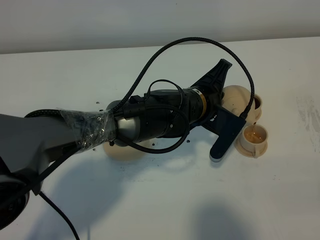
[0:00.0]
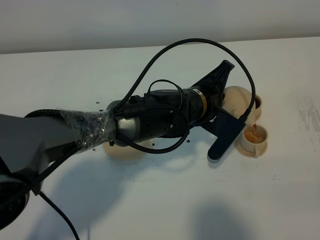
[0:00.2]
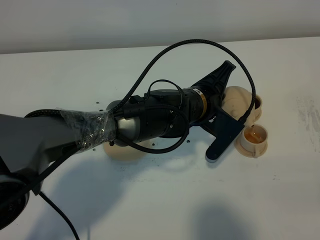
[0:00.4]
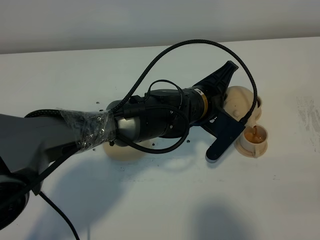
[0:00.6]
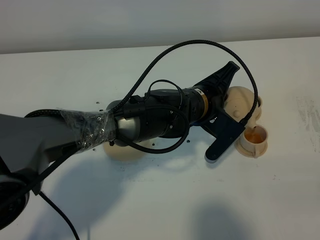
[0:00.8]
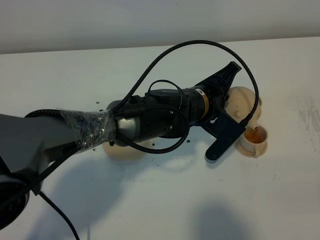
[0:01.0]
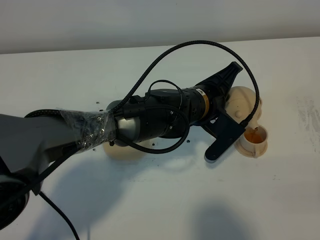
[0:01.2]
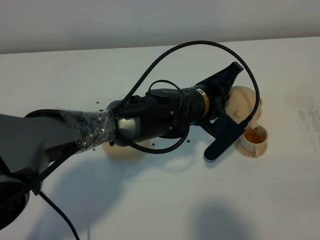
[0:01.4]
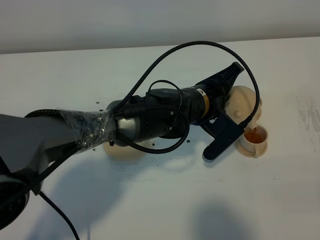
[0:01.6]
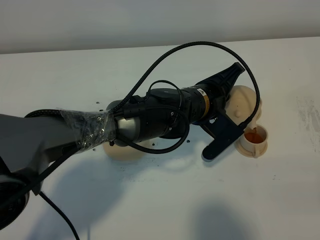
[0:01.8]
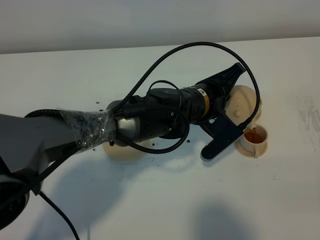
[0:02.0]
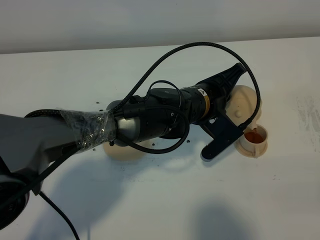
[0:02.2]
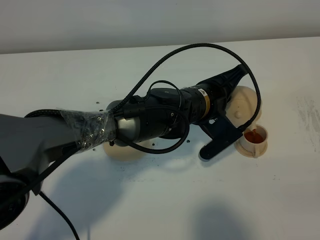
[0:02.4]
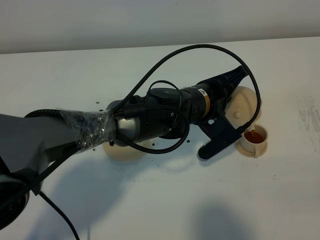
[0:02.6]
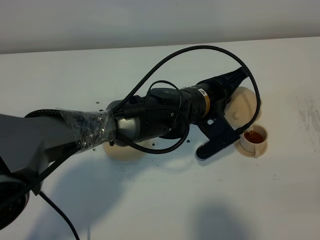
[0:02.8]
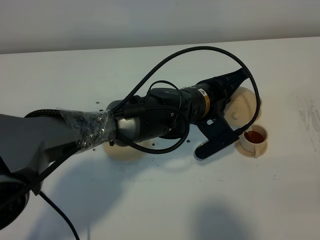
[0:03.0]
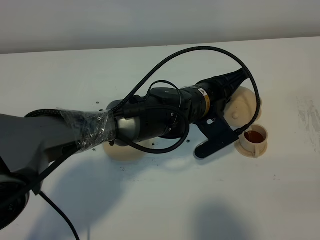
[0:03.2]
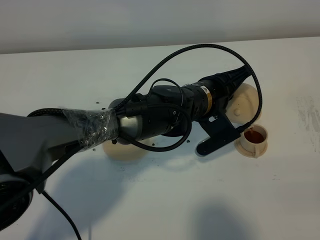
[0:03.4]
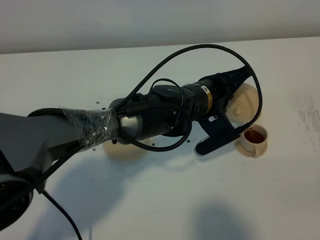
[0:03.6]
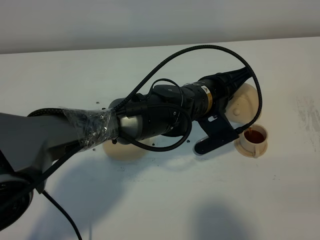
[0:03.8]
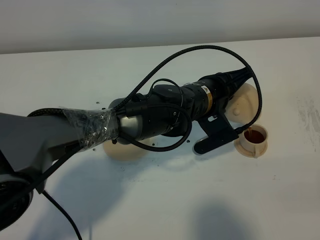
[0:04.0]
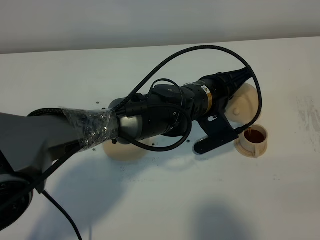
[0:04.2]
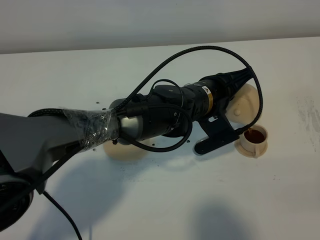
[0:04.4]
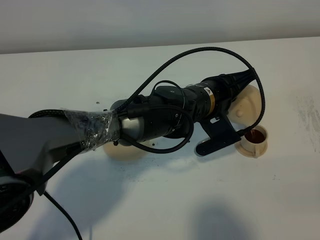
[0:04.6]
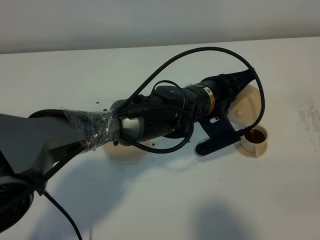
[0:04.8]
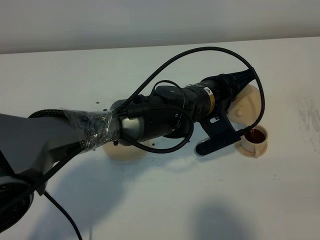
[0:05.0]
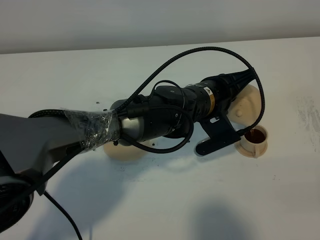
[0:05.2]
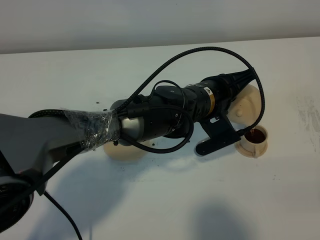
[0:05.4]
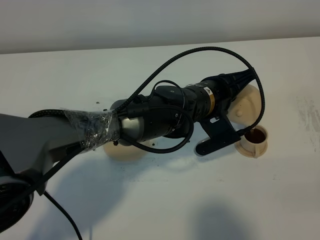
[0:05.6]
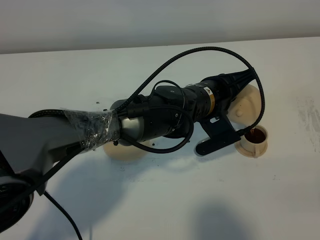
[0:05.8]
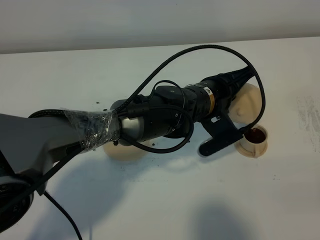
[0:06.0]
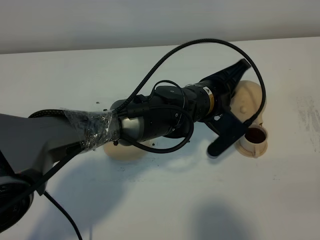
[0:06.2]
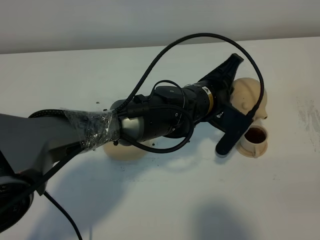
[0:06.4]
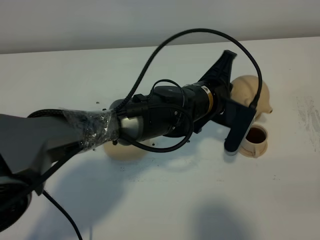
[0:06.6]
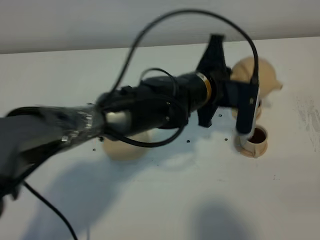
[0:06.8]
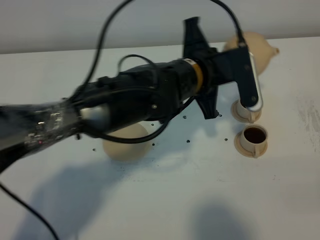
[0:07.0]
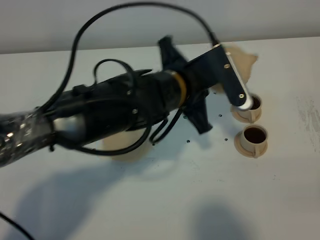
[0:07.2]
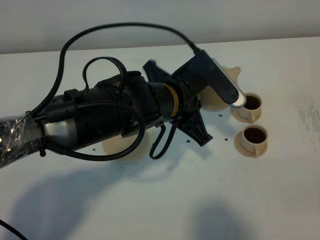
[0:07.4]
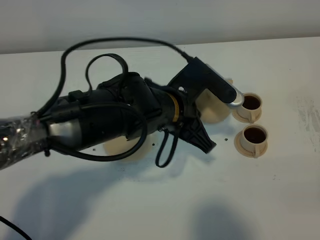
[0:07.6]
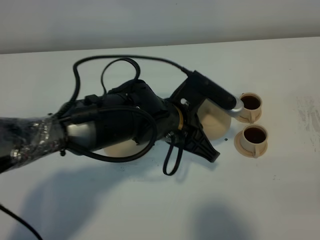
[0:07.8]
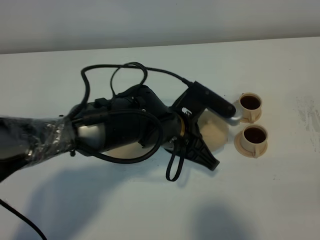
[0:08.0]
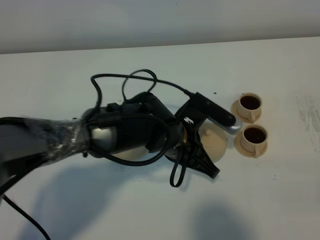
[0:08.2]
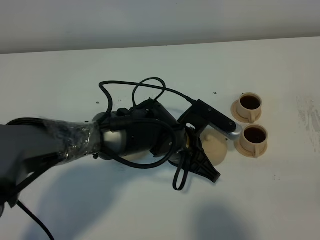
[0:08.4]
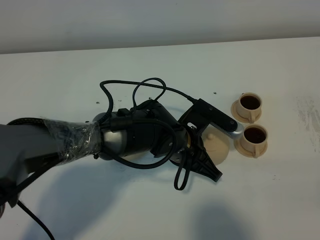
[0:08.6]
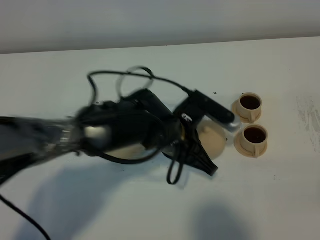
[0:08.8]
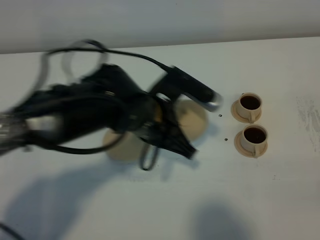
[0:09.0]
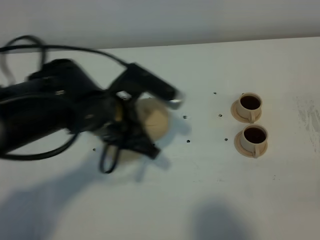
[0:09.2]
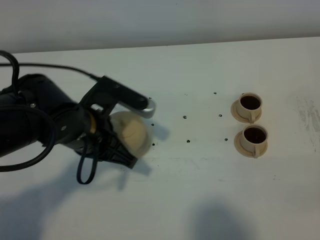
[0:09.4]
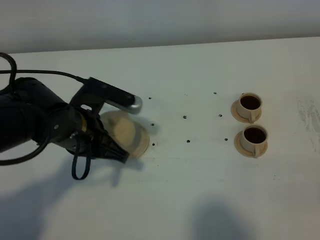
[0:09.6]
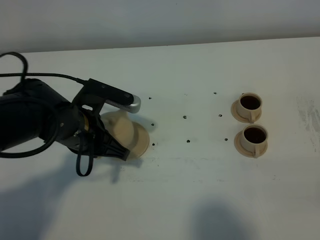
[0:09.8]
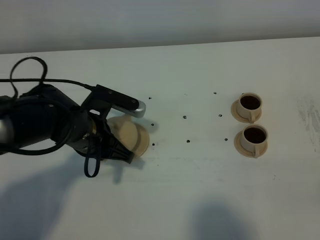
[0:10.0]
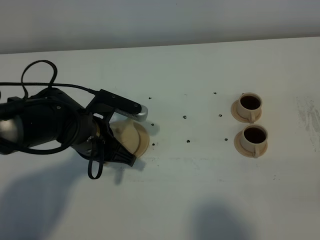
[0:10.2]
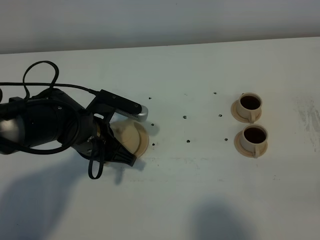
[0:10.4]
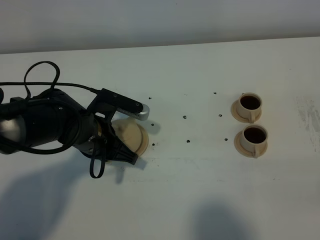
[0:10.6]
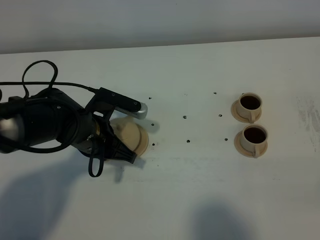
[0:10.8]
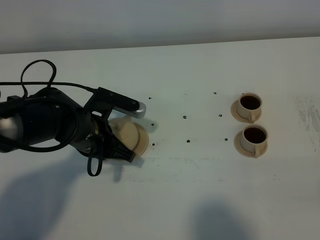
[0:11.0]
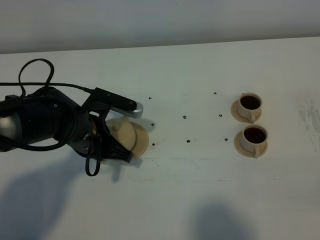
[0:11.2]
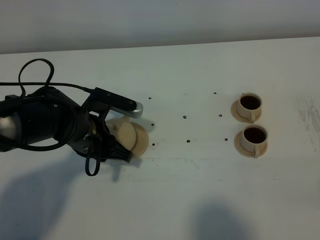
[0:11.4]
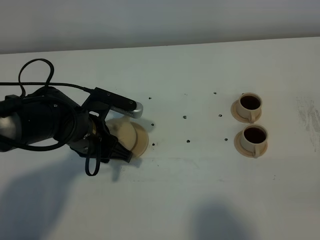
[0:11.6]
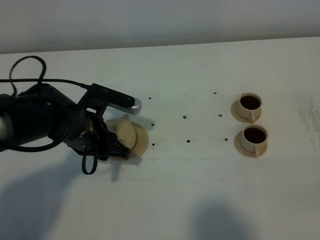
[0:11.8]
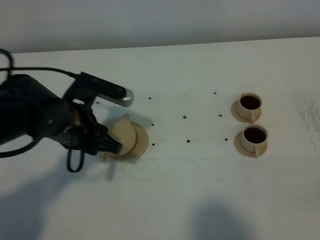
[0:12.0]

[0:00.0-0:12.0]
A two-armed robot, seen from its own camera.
Task of the whole recording: grasp the brown teapot and pour the tea into the two brown teacups one by one, put the brown teapot back in its original place.
Step, 0:00.0 to 0:06.2: Pour tea into the teacup with the left gripper.
0:00.0 to 0:01.6: There are only small adjustments of the grippers.
0:01.6 to 0:04.4: The grippers stay close to where they were, moving slightly.
0:04.4 to 0:06.0: Both grippers stay put.
0:06.0 to 0:07.6: The left gripper heads to the left, covering approximately 5 cm.
0:07.6 to 0:09.0: The left gripper goes downward and returns, about 10 cm each way.
0:09.0 to 0:10.4: The left gripper is displaced to the left and downward by about 10 cm.
0:10.4 to 0:12.0: The left gripper travels upward by some 5 cm, and opens.

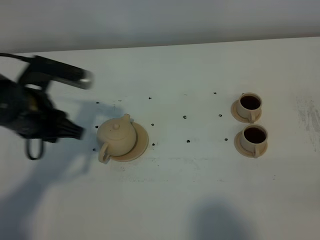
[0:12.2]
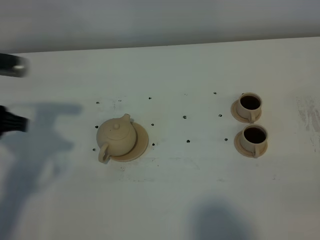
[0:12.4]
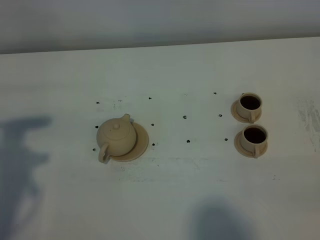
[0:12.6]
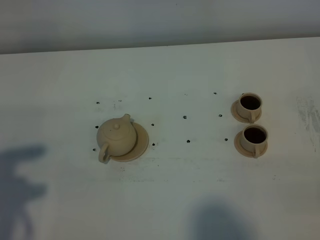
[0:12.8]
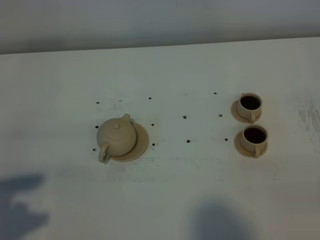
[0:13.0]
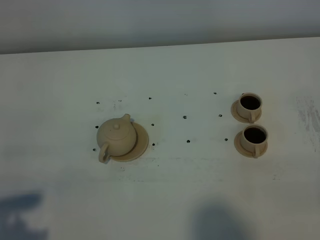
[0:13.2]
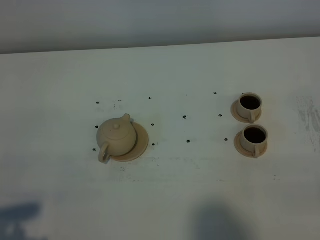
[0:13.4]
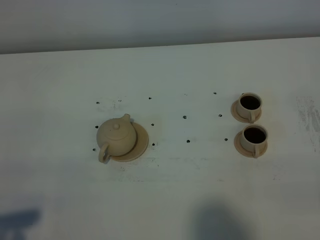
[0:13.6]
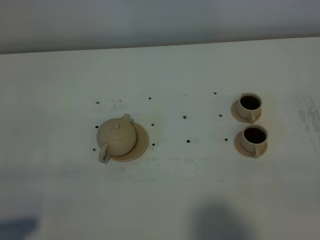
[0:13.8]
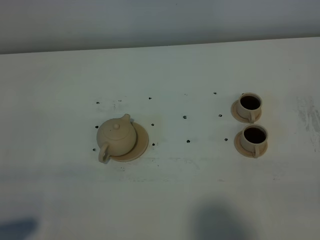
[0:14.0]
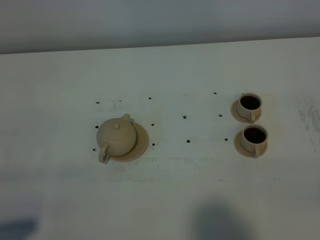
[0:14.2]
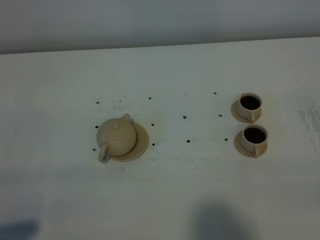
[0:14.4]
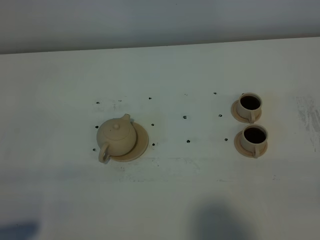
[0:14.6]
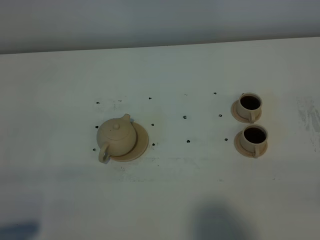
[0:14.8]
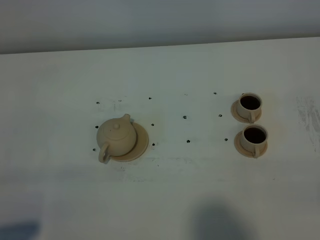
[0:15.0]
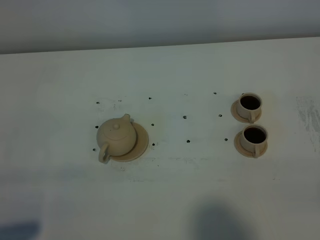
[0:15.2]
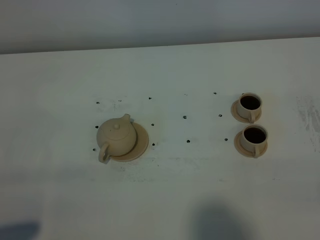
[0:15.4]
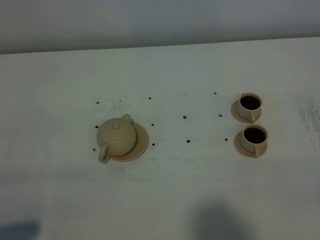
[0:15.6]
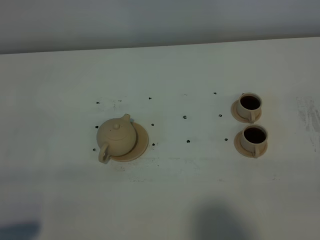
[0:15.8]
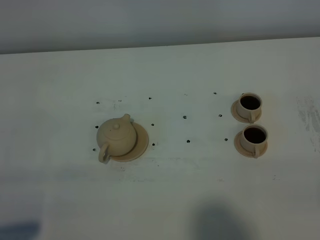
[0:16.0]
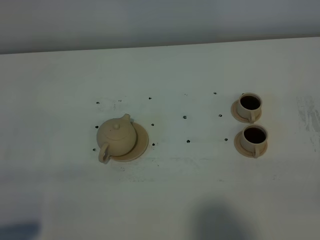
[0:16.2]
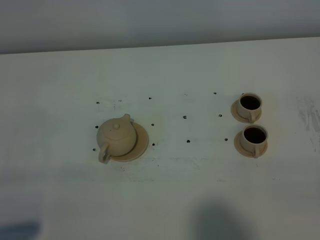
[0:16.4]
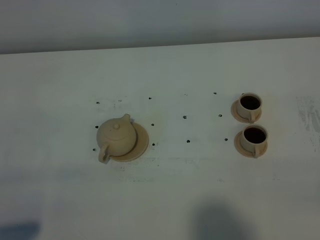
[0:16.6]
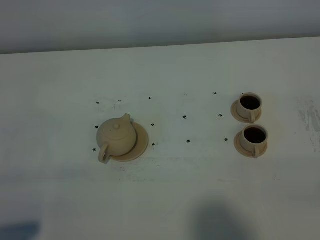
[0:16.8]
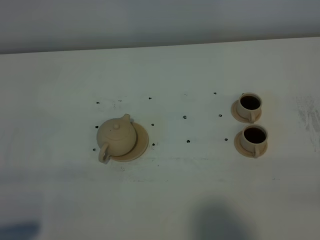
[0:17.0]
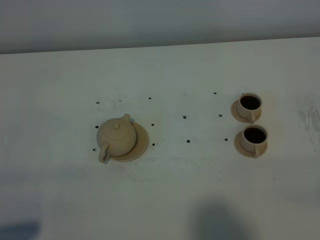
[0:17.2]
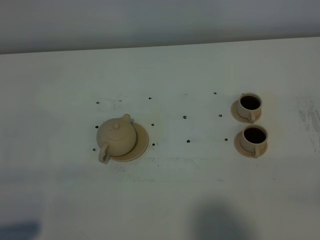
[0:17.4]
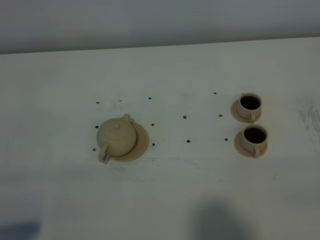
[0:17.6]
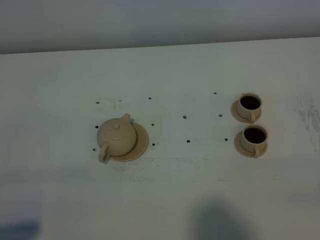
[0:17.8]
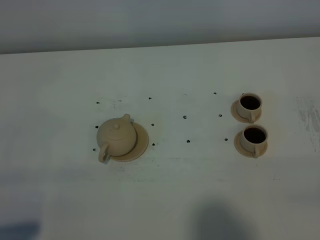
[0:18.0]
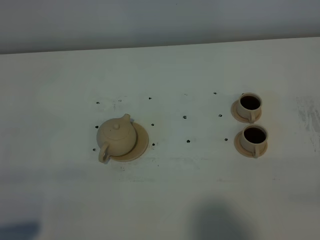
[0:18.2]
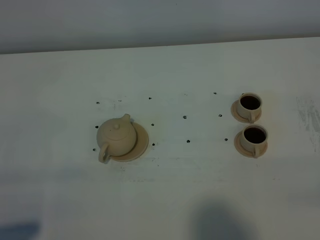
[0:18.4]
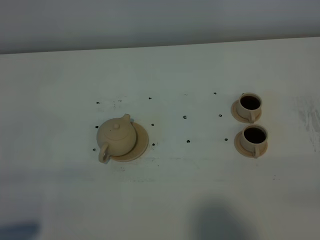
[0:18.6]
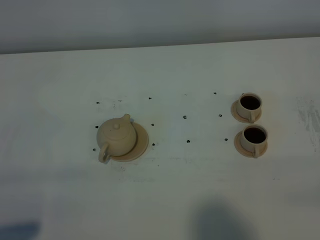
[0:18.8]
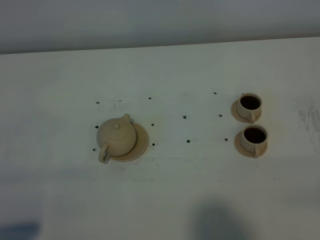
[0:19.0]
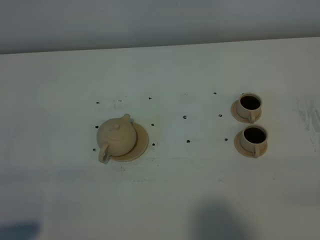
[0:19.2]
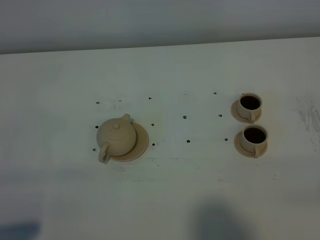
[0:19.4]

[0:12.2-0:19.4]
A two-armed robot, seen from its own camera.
Task of the whole recording: grasp the brown teapot and pour the tea into the two brown teacups one by one, put the brown teapot back in its original place.
0:12.2 to 0:13.6: The left gripper heads backward, covering some 25 cm.
0:15.0 to 0:16.6: Neither gripper changes place.
0:18.0 to 0:19.4: Neither gripper changes place.

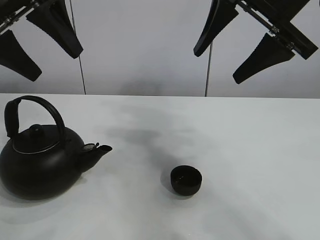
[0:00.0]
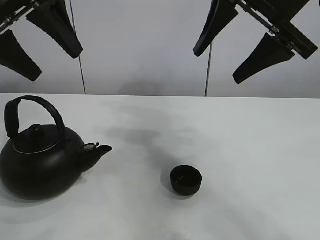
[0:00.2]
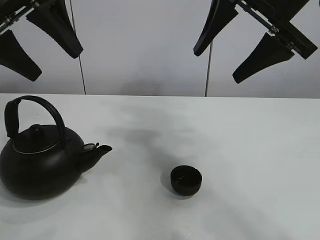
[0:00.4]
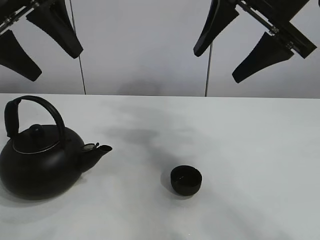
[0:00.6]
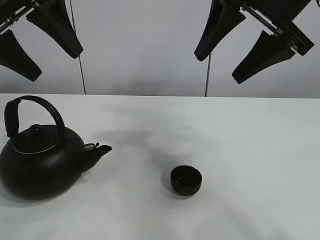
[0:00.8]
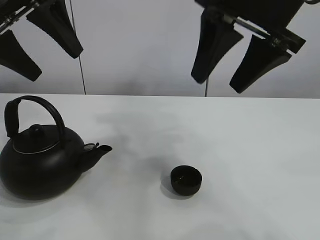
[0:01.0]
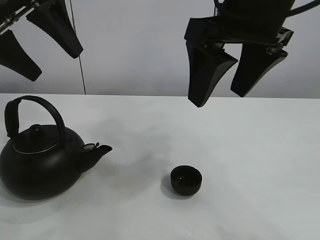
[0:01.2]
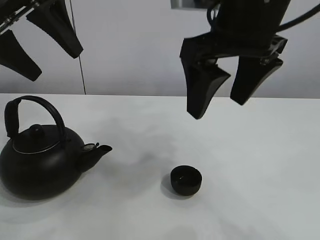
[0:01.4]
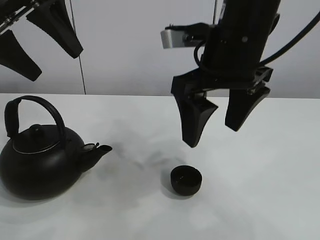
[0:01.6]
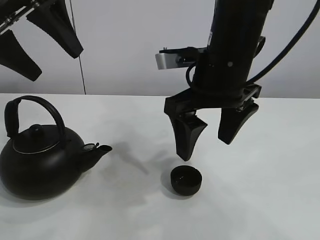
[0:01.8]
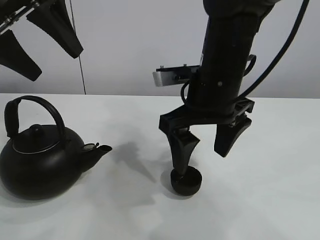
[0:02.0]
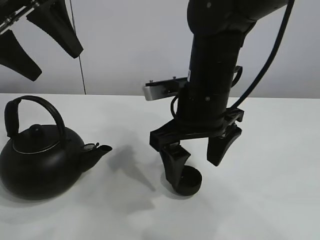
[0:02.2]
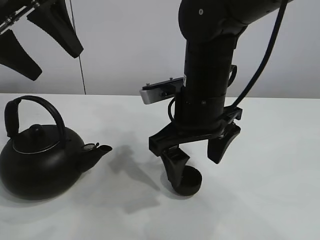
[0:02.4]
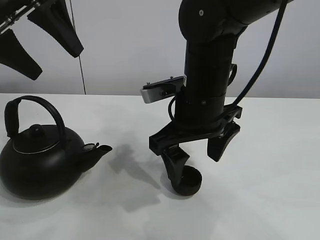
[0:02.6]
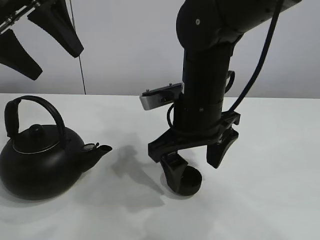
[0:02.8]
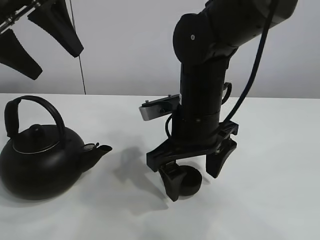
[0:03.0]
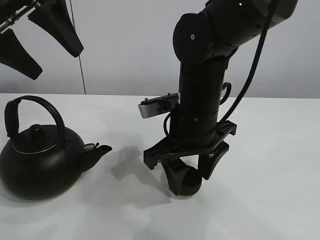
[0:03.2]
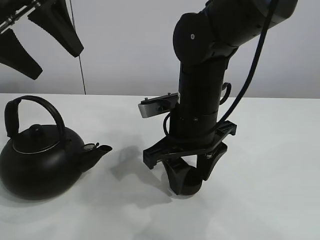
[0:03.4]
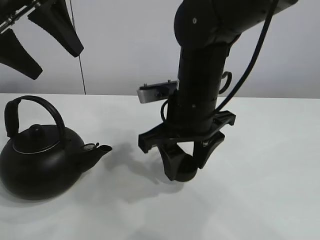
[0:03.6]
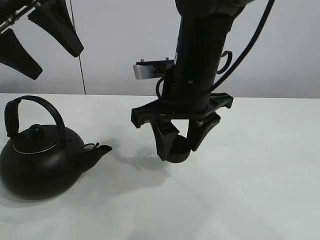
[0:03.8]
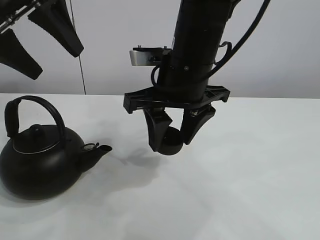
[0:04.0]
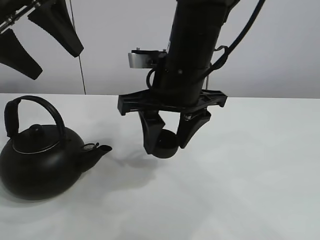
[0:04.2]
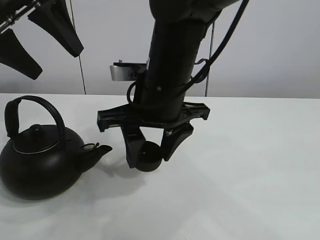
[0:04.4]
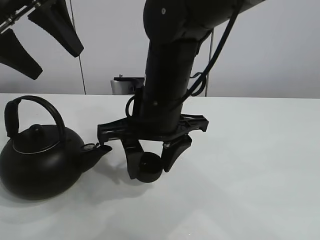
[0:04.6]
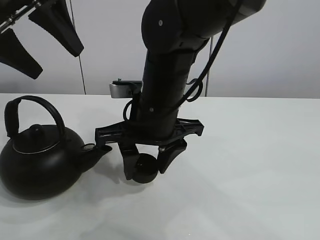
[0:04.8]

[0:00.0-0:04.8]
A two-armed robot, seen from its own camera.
Task of the whole recording: pour tea into the teacup.
Step, 0:00.0 to 0:03.4: Pick up the teacup with the right gripper.
0:01.6 to 0:03.2: The right gripper travels downward by about 10 cm, and closes its fingers.
0:03.2 to 0:04.8: The right gripper moves to the left, about 5 cm.
